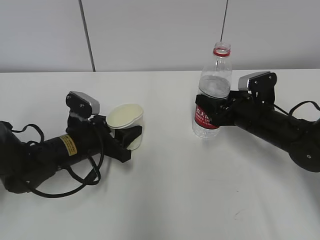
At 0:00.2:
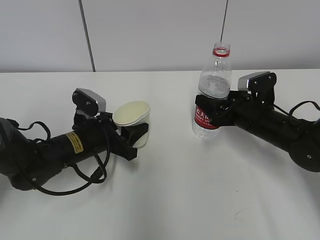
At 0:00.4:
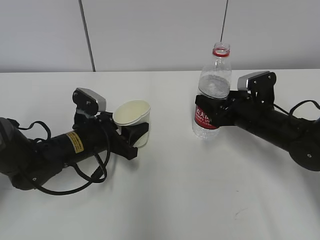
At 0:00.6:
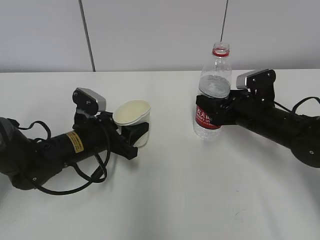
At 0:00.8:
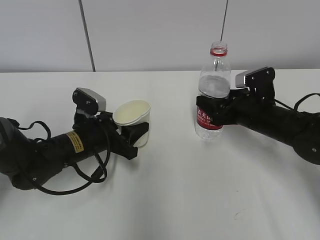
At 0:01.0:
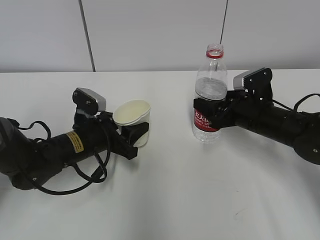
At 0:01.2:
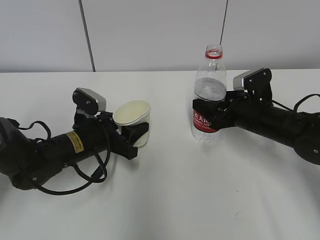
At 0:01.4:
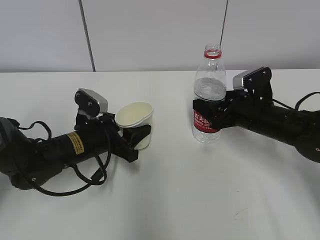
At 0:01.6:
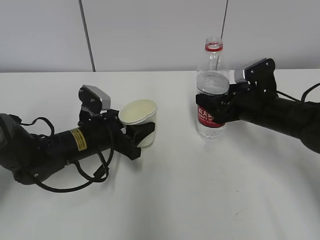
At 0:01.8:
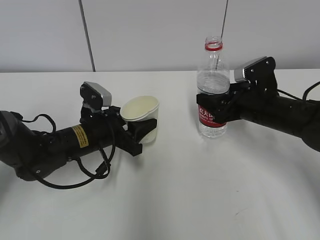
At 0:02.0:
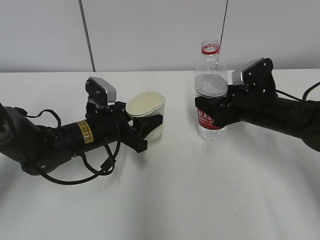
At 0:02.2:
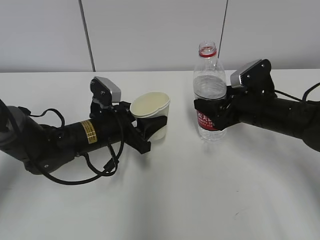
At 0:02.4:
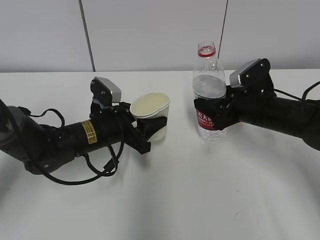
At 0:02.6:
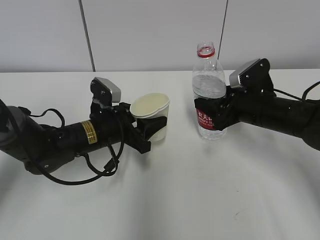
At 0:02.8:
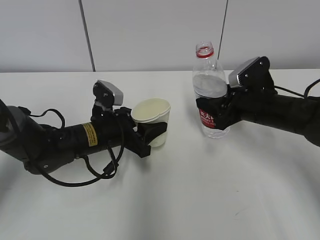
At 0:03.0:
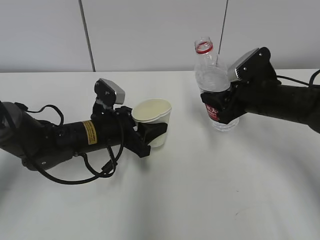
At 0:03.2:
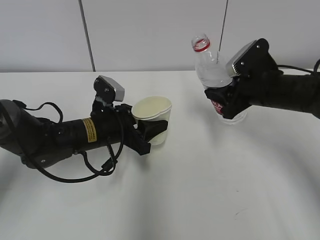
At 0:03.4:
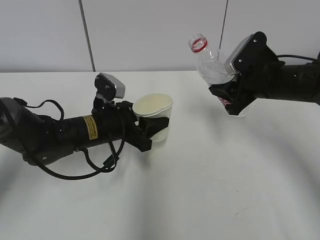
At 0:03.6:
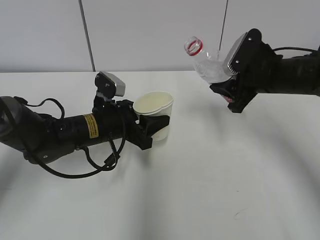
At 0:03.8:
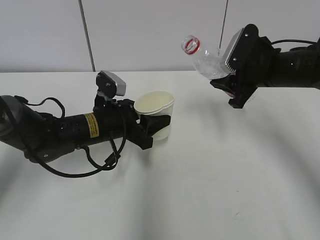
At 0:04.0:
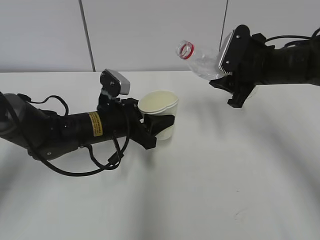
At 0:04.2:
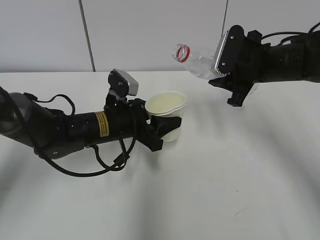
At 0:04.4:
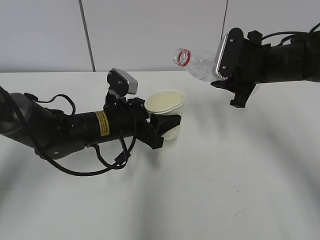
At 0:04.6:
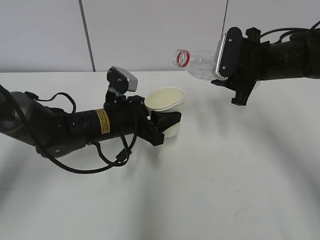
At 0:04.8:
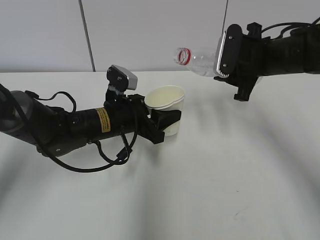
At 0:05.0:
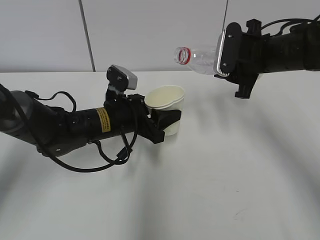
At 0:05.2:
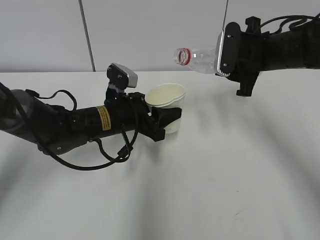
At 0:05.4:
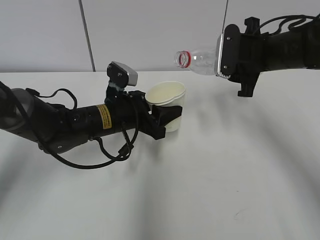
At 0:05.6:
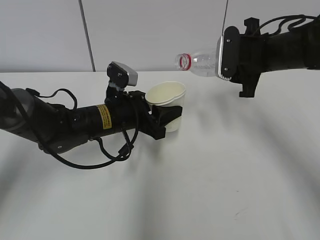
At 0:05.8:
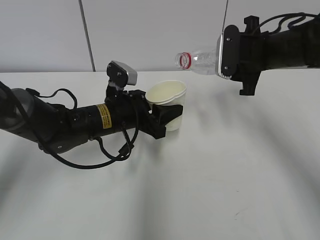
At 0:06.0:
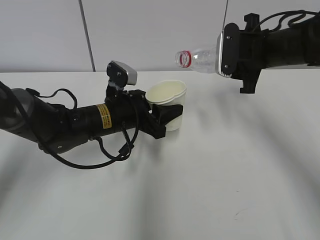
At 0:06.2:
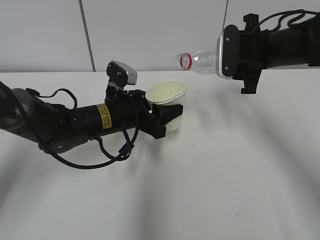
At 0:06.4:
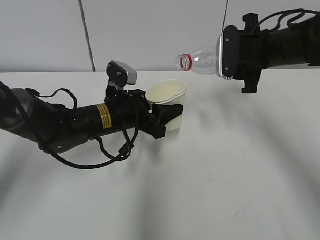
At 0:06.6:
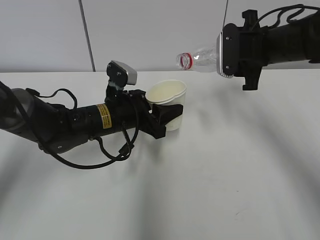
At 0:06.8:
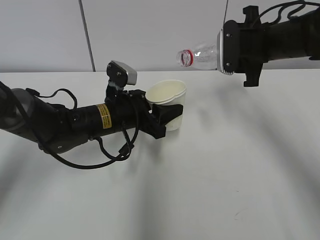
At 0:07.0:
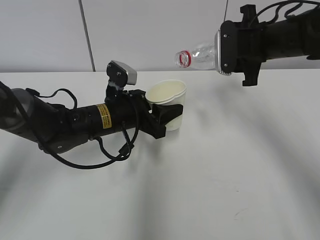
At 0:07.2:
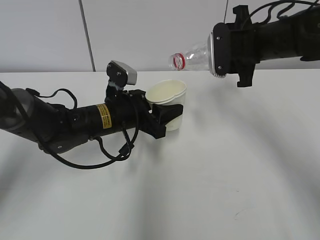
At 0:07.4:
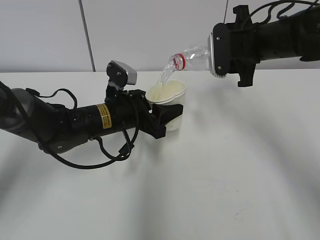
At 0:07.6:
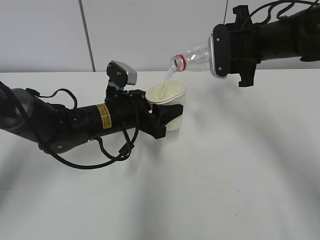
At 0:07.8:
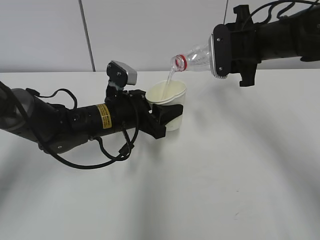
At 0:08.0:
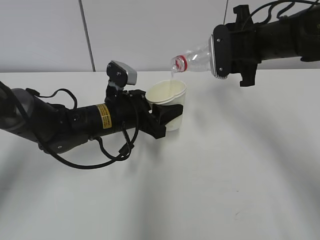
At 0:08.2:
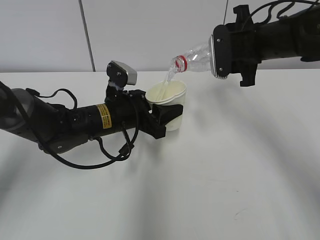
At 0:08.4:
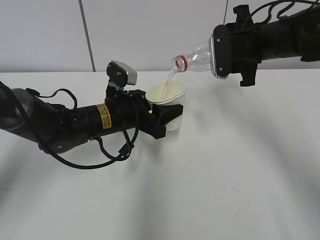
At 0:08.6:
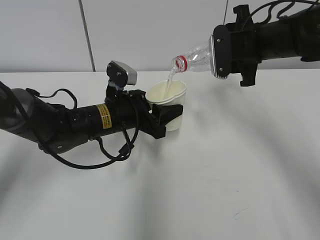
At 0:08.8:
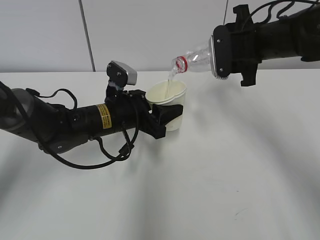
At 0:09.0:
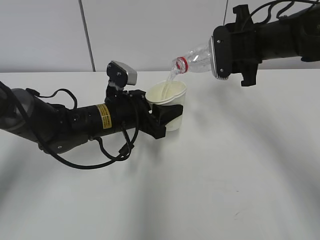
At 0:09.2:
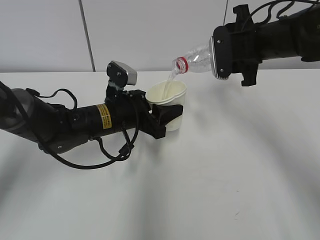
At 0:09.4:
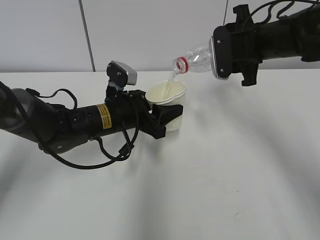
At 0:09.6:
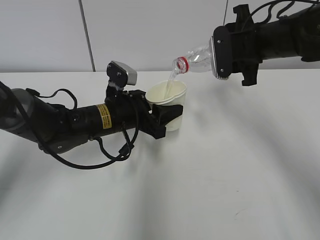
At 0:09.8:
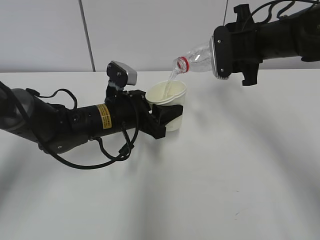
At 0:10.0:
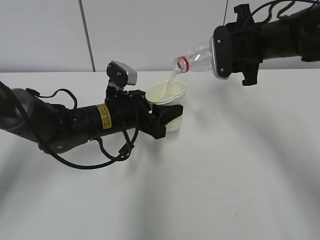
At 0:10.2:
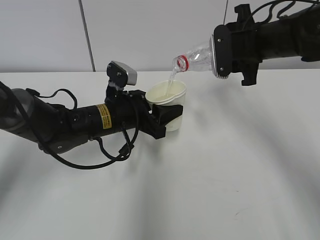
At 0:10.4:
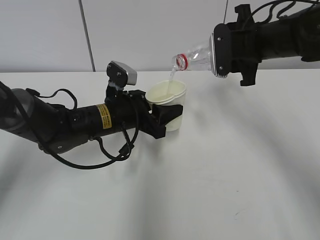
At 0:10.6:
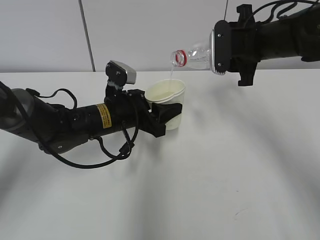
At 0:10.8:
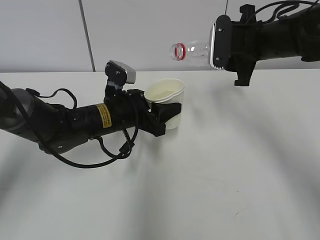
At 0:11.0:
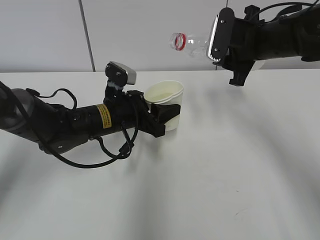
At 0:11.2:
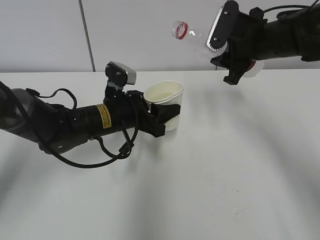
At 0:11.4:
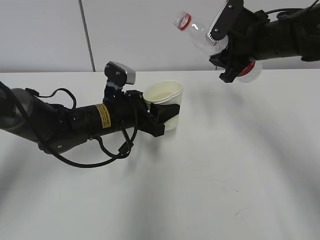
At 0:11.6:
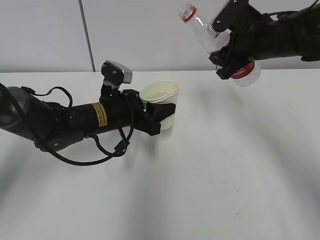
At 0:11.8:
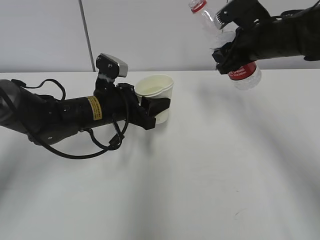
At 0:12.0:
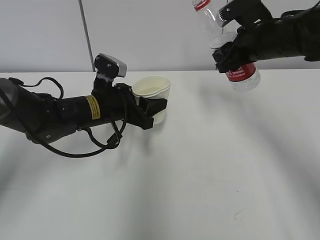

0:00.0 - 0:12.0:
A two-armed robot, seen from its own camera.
Step, 0:00.0 - 0:04.0: Lift the paper cup with the left hand.
Step, 0:04.2 - 0:06.8: Fill water with the left hand.
Step, 0:04.2 - 0:06.8: Pour water with the right hand.
Step, 0:07.0 - 0:08.2: Collect water with the right hand.
0:00.0 - 0:01.6: The grippers move only a little.
0:01.6 - 0:03.0: The grippers stay close to where they were, moving slightly.
0:03.0 - 0:04.4: The right gripper goes about 5 cm upward.
0:04.4 - 0:06.0: The grippers make only small movements.
0:06.0 - 0:07.6: The grippers make only small movements.
0:07.6 - 0:10.4: The two grippers keep their place.

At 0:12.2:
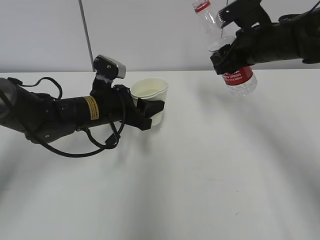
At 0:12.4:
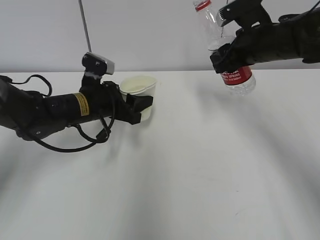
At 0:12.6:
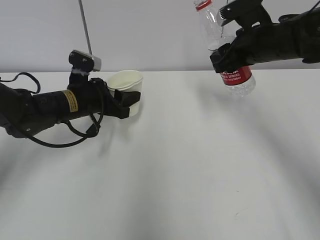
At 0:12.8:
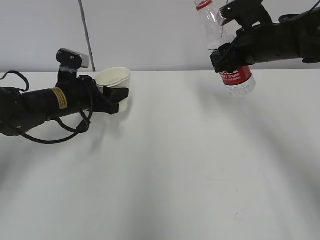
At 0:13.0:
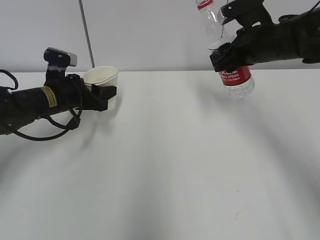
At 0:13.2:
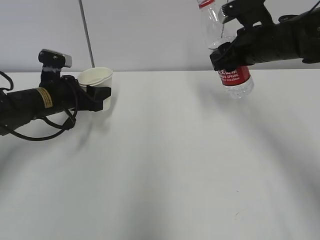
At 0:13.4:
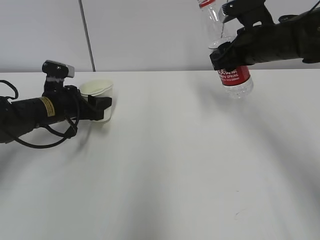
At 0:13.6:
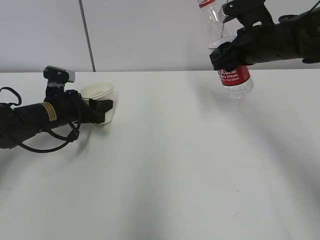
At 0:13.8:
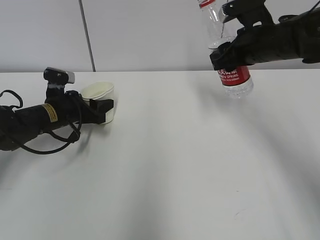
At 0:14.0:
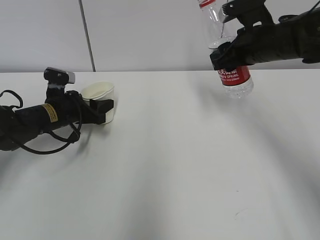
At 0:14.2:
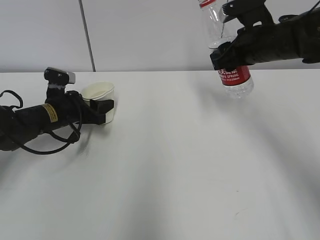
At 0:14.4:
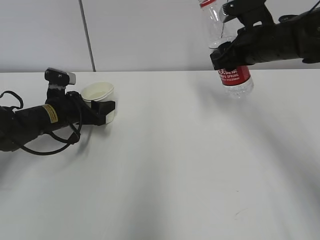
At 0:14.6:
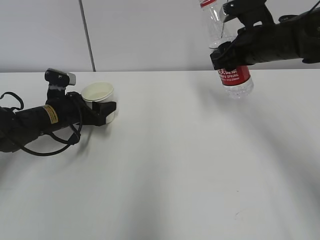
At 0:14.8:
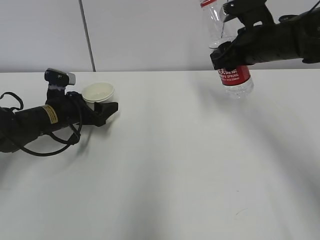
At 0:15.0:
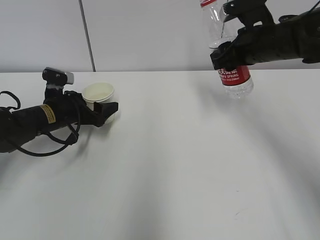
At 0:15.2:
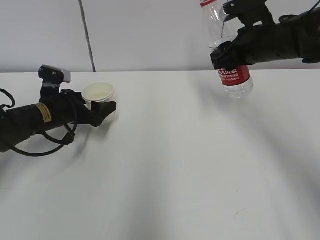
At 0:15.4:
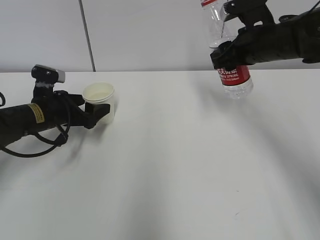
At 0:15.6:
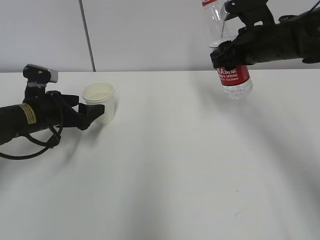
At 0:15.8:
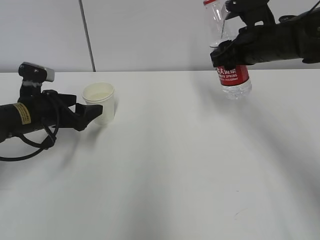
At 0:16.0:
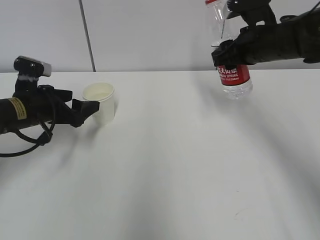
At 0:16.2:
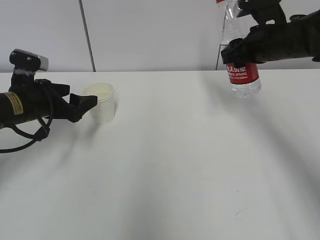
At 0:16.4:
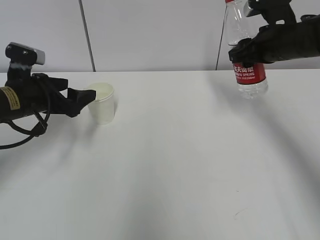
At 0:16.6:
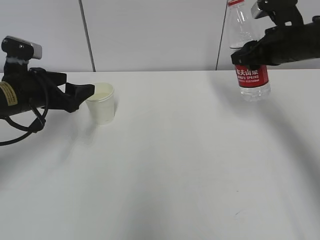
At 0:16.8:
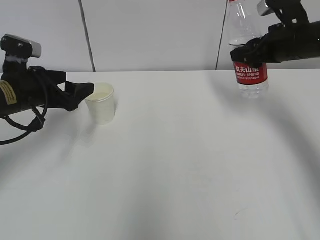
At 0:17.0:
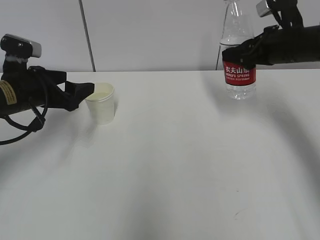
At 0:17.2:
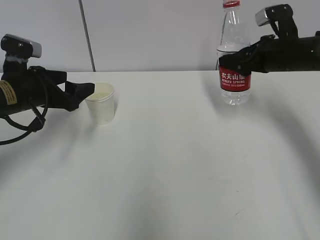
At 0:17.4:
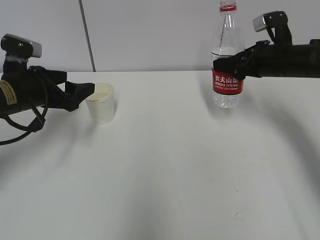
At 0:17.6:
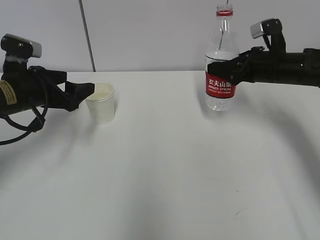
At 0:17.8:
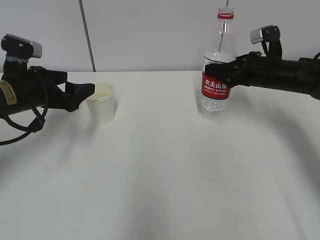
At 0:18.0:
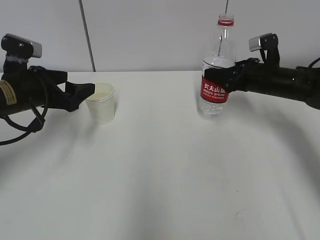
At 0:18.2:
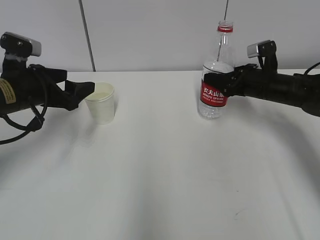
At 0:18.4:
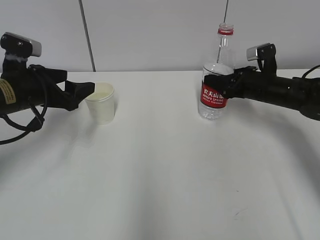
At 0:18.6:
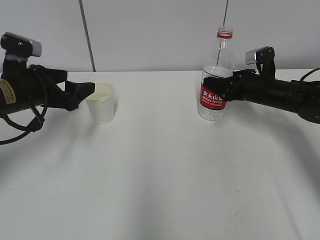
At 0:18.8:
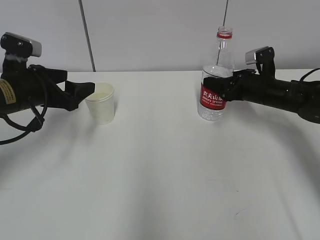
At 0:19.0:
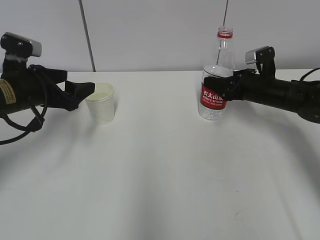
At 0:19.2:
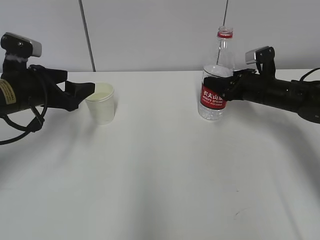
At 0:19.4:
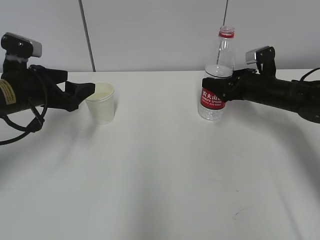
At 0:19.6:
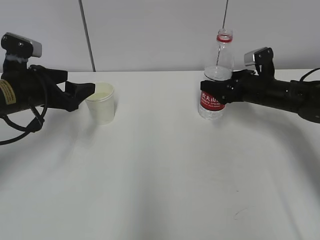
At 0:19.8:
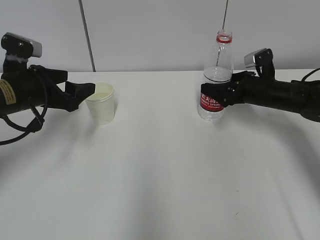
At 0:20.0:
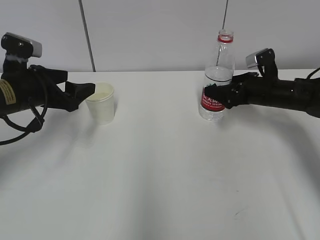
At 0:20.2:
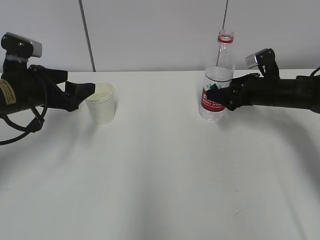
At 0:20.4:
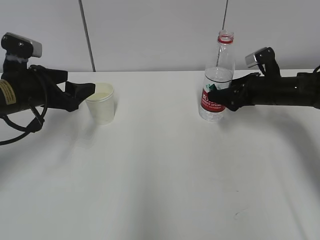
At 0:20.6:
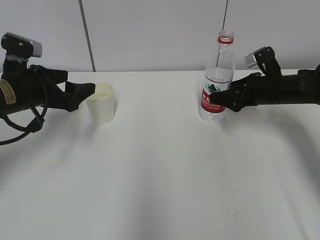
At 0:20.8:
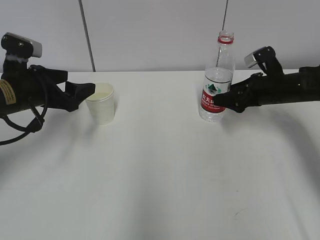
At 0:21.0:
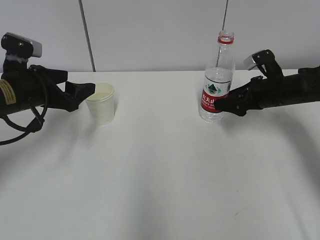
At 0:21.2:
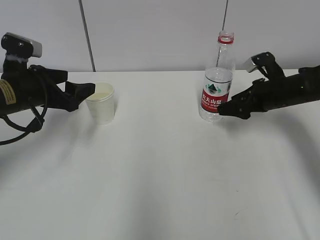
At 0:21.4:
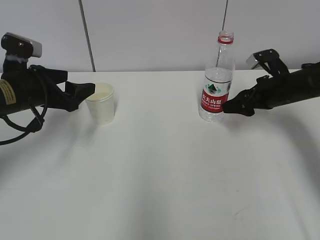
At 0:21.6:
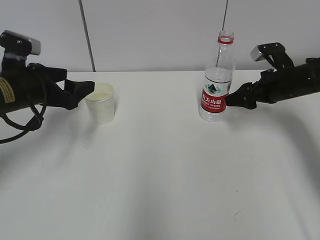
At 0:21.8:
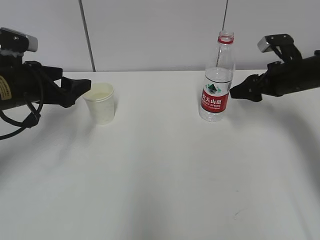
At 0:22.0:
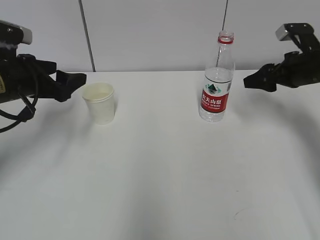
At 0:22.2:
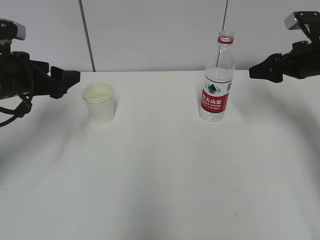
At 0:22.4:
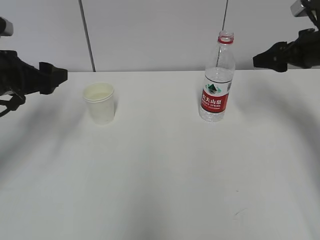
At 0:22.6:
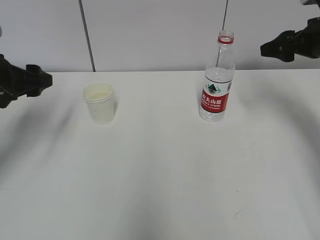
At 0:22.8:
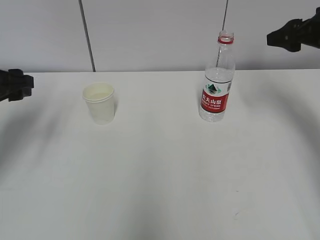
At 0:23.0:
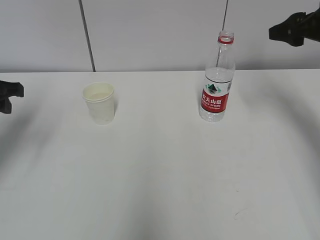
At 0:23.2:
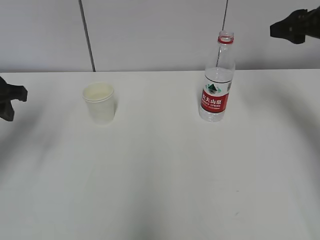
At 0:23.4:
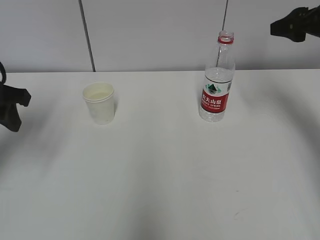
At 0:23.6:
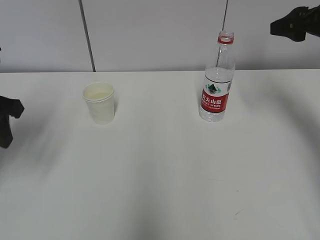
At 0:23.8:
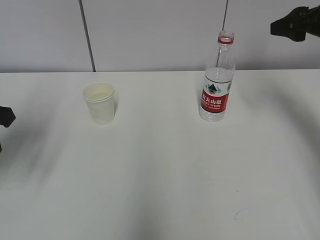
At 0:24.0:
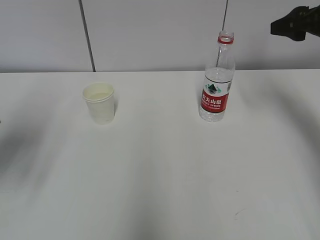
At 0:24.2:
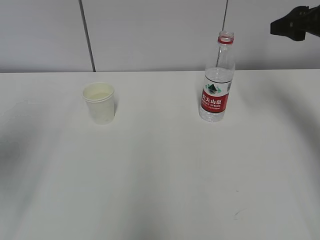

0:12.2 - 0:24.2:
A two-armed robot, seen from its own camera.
0:12.2 - 0:13.8: The left gripper moves to the left, roughly 10 cm.
0:13.8 - 0:15.2: The left gripper opens.
0:15.2 - 0:16.6: The left gripper moves upward, approximately 5 cm, while the right gripper goes about 5 cm to the right.
0:16.6 - 0:18.2: The right gripper moves downward, some 10 cm.
0:18.2 - 0:19.8: The right gripper opens its fingers.
0:21.2 - 0:22.6: The right gripper heads upward, covering about 15 cm. Meanwhile the left gripper shifts by approximately 5 cm.
0:22.6 - 0:24.2: The left gripper is displaced backward and upward by approximately 15 cm, and closes its fingers.
